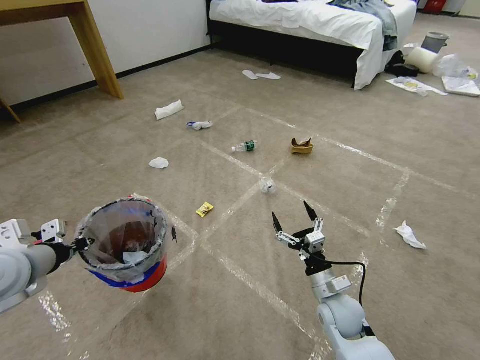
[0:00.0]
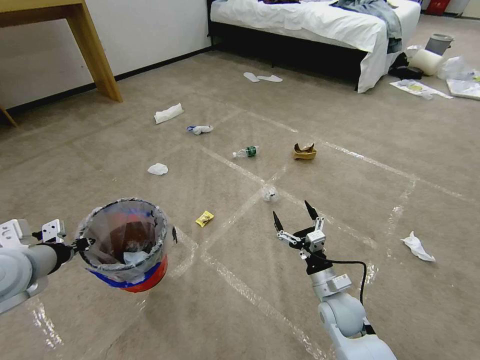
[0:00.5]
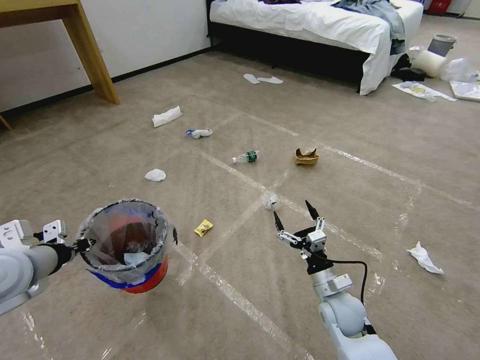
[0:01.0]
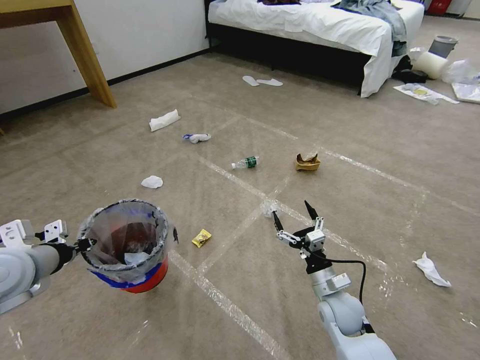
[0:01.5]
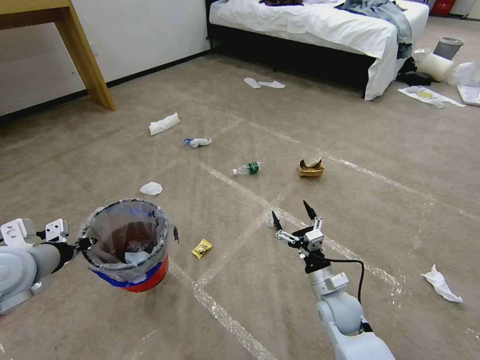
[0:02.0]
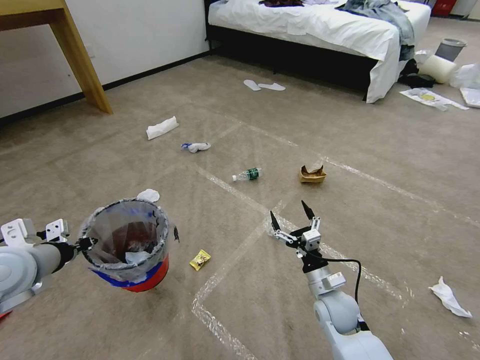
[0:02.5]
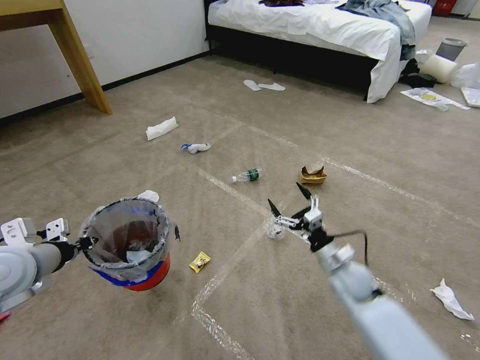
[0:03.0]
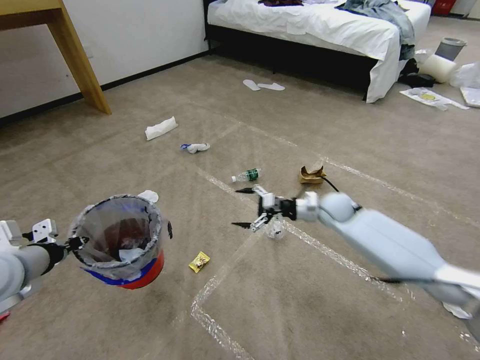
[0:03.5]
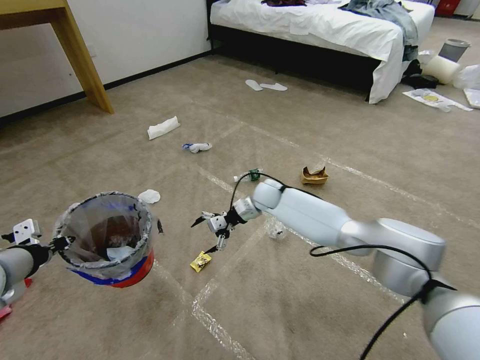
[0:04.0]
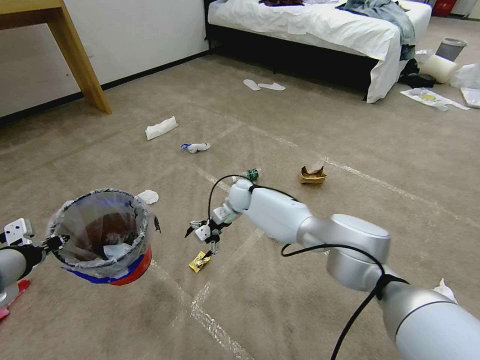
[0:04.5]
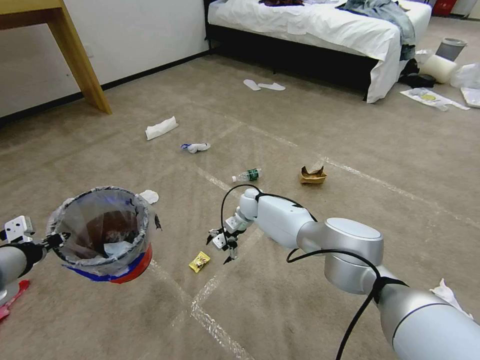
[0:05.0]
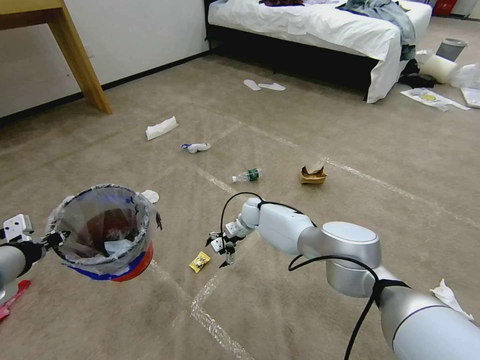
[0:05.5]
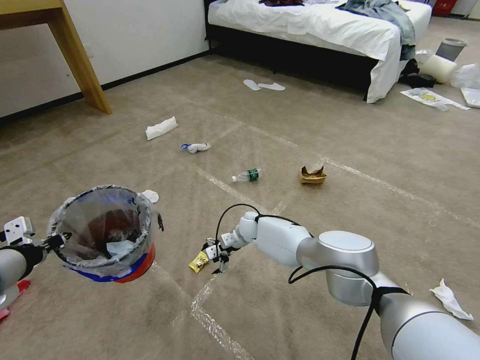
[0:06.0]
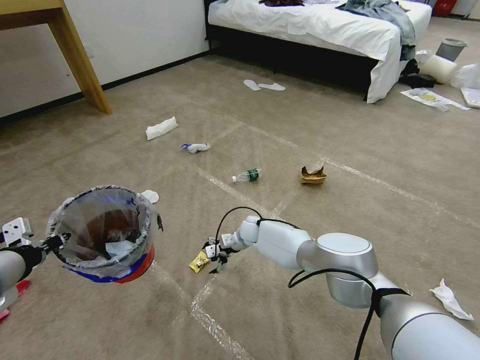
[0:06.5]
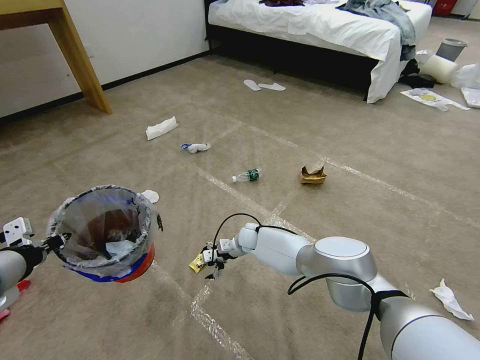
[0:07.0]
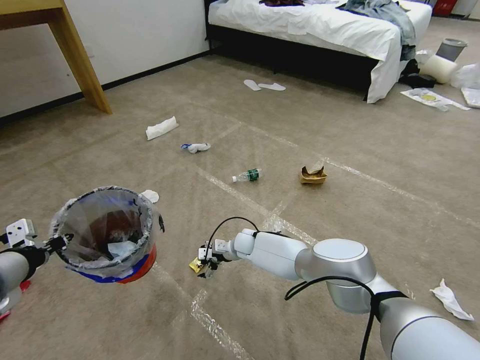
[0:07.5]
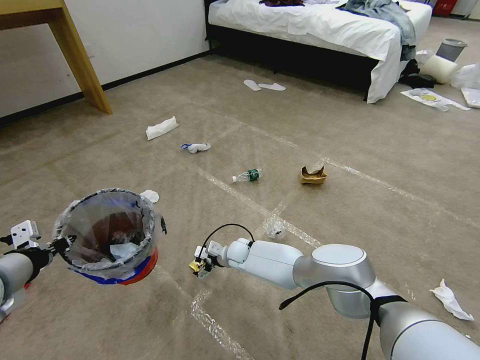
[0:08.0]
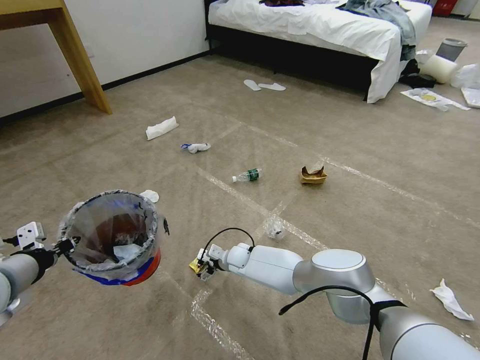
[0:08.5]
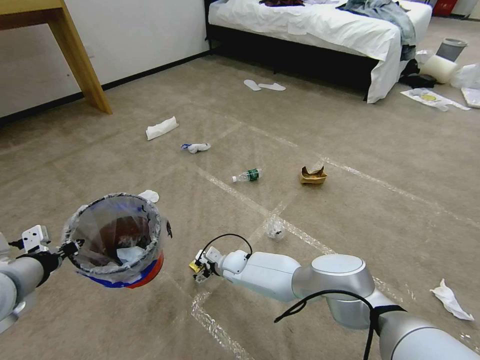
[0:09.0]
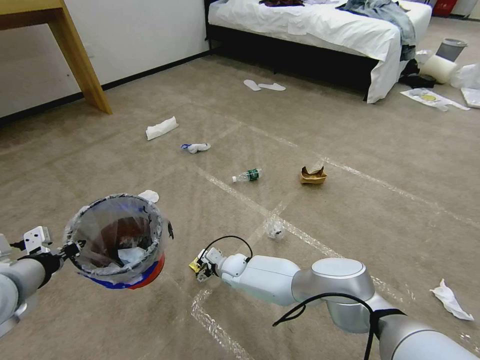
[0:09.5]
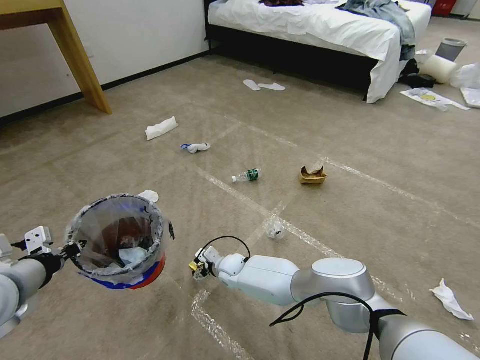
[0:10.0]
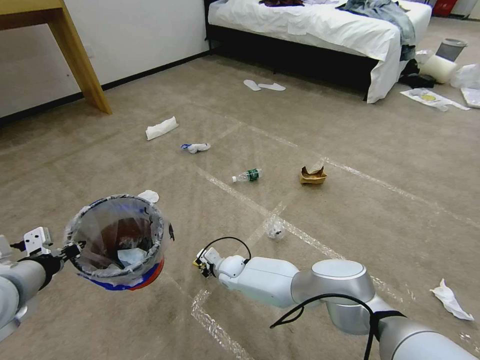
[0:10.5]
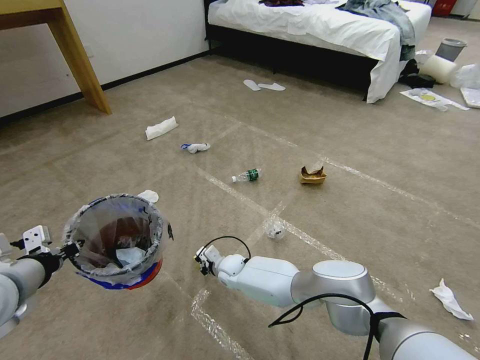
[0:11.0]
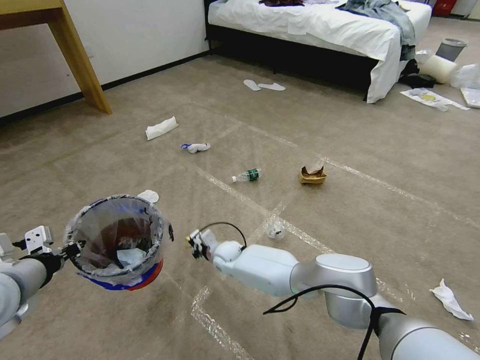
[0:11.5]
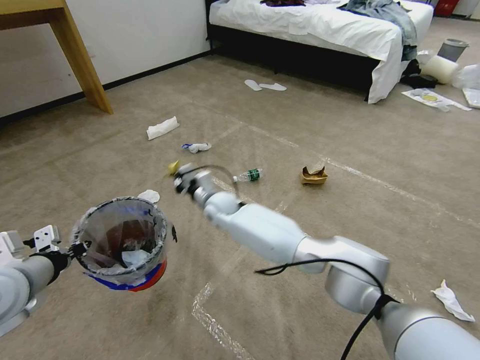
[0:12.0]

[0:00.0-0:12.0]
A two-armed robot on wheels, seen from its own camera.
Task of the whole recording: Pick up the trash bin and place the garbage on the floor into it.
0:02.0 to 0:04.0: The right gripper travels forward and to the left by approximately 35 cm.
0:04.0 to 0:06.0: The right gripper travels downward by roughly 10 cm.
0:06.0 to 0:08.0: The right gripper heads backward, covering some 5 cm.
0:08.0 to 0:10.0: The right gripper ends up approximately 5 cm from where it was.
0:10.0 to 0:12.0: The right gripper travels upward and forward by roughly 20 cm, and closes up.

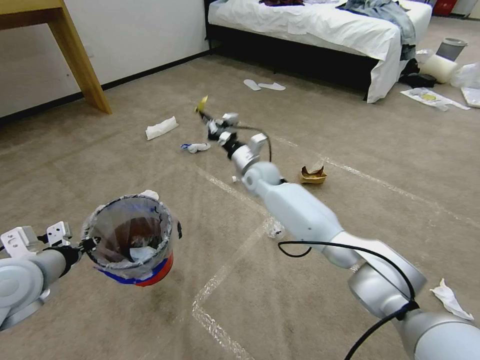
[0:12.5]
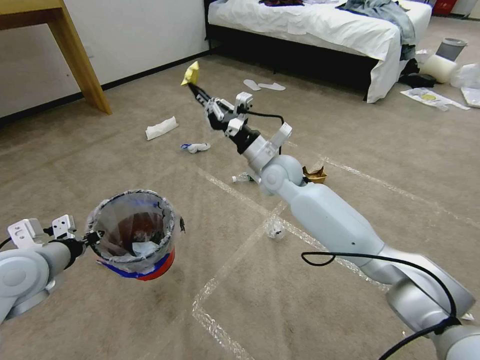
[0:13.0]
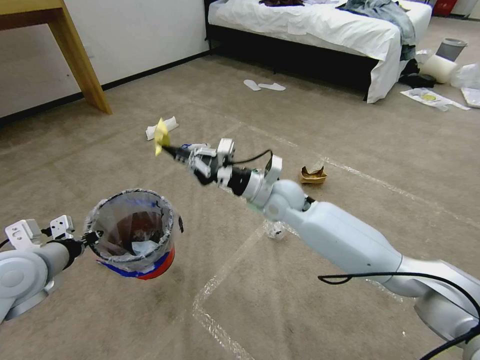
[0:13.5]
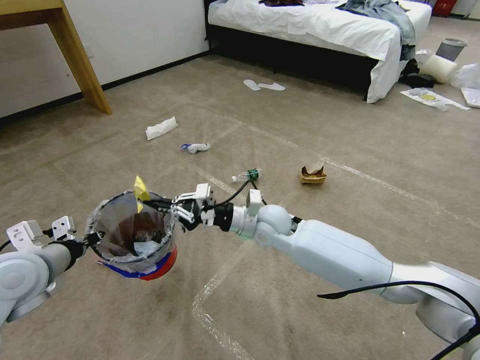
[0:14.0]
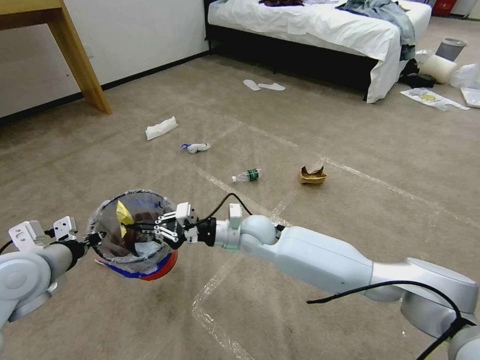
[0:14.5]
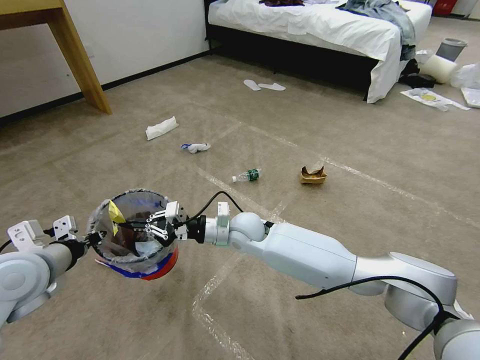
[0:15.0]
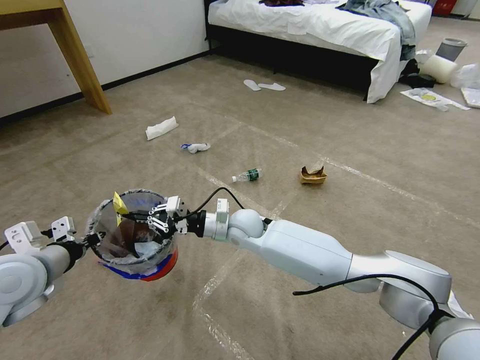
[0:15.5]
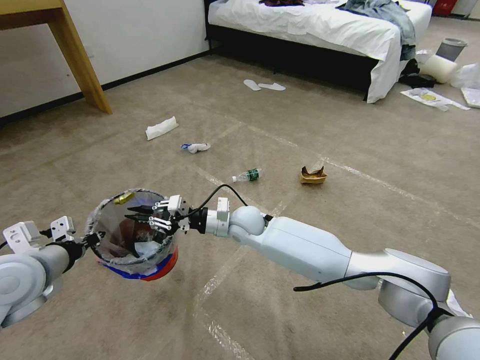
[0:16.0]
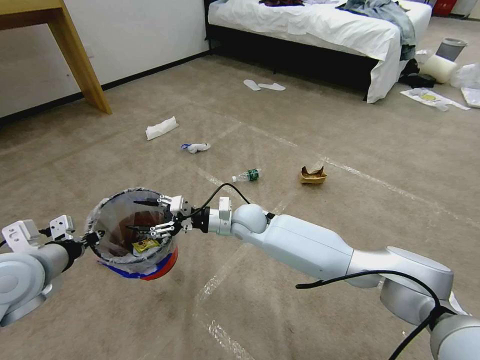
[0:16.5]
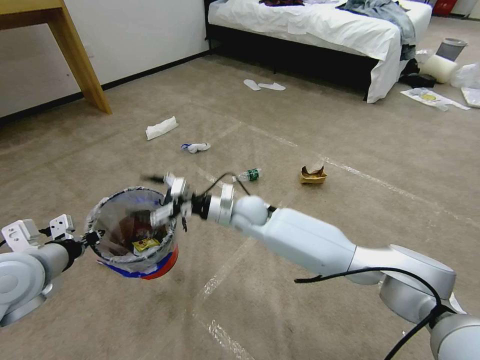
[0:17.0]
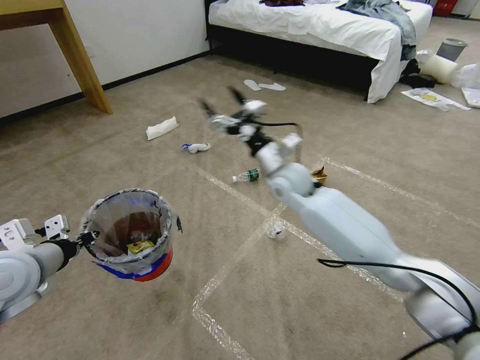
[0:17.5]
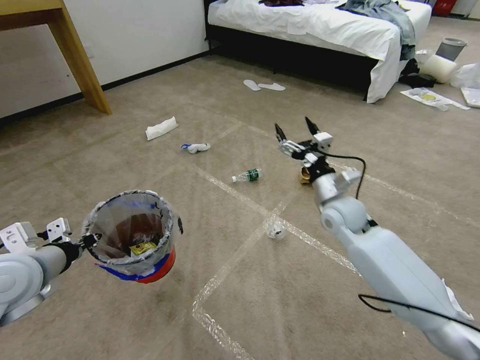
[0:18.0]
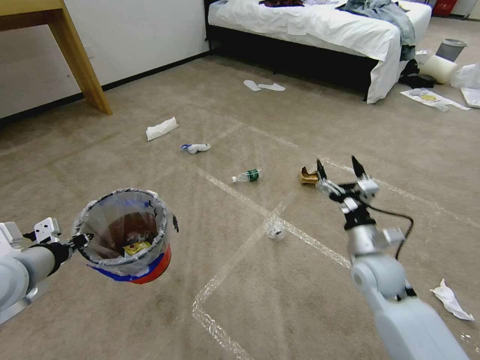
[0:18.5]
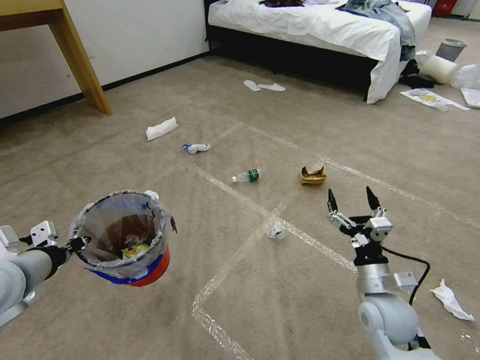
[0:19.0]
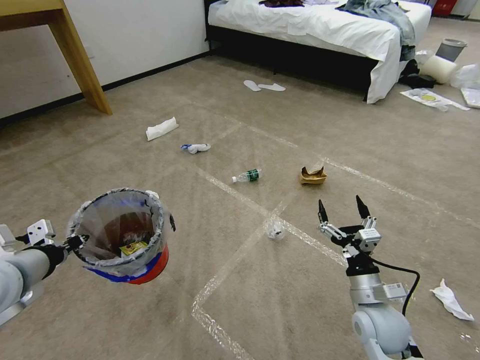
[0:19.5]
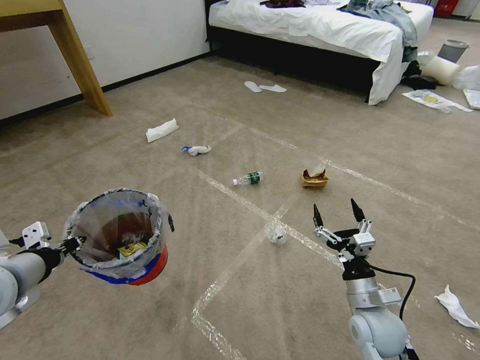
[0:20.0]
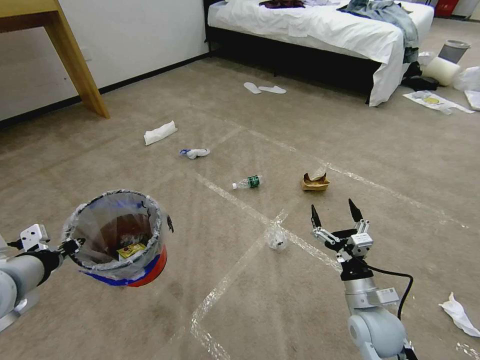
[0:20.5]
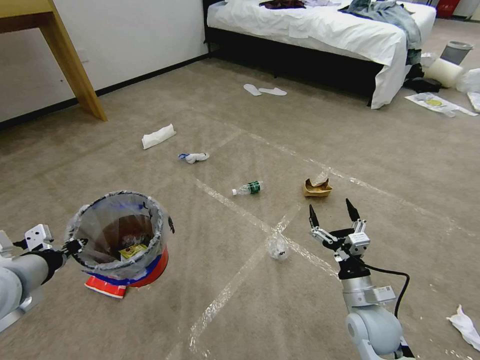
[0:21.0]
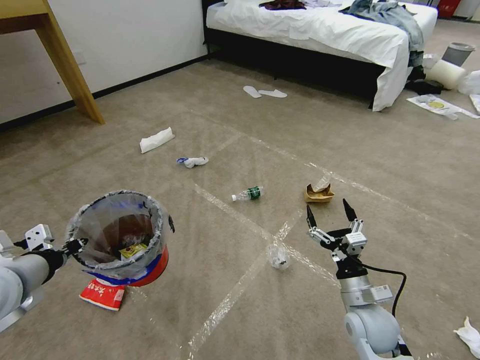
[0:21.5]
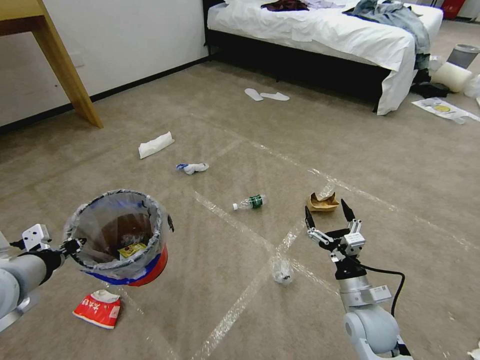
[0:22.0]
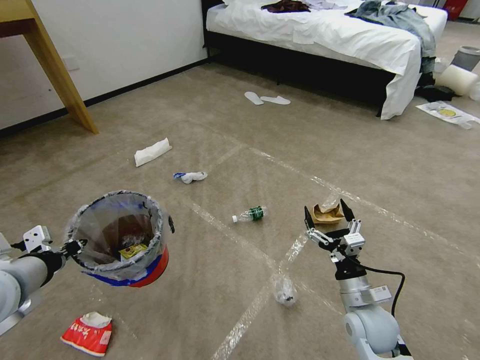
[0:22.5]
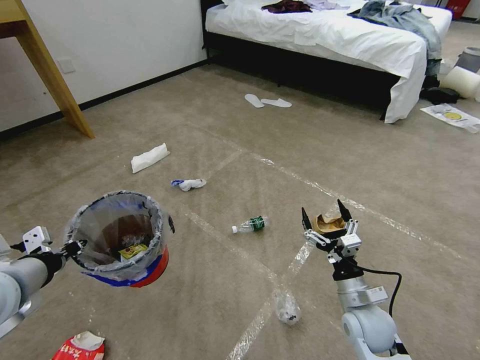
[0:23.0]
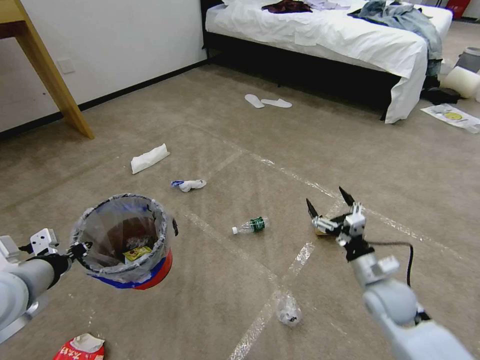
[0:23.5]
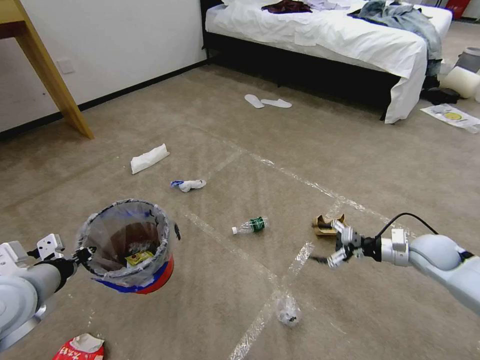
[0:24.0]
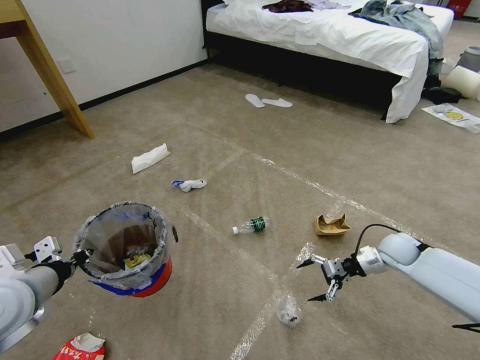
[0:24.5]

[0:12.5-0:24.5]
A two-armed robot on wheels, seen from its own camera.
Task of the whole recording: Pick up the trash bin and place the garbage on the floor into it.
0:12.5 to 0:14.5: The right gripper travels backward by some 15 cm.
0:14.5 to 0:16.5: The right gripper ends up some 5 cm from where it was, and opens.
0:16.5 to 0:18.5: The right gripper is displaced to the right and backward by some 30 cm.
0:18.5 to 0:20.5: The right gripper shifts some 10 cm backward and downward.
0:22.5 to 0:24.5: The right gripper moves forward and to the right, approximately 25 cm.

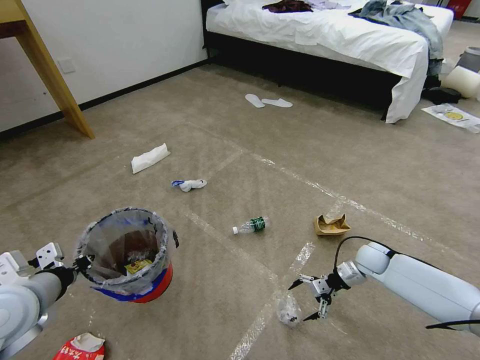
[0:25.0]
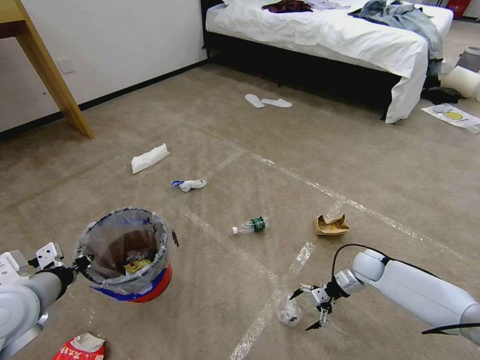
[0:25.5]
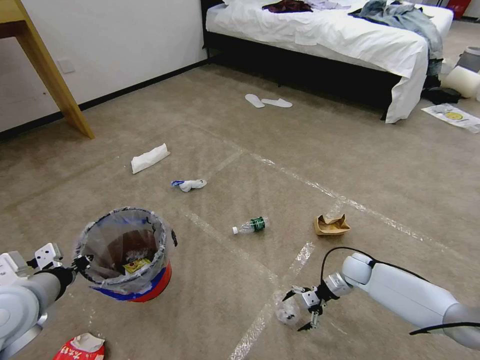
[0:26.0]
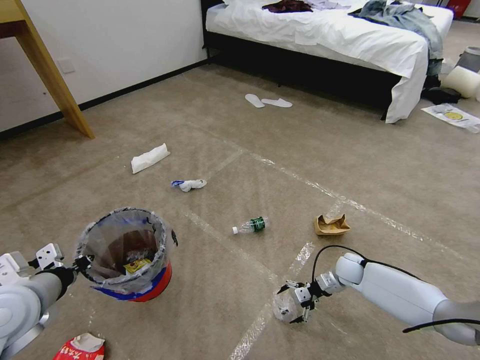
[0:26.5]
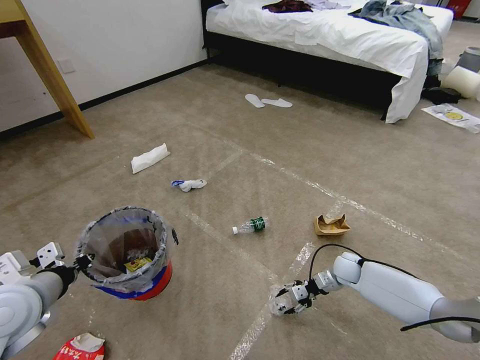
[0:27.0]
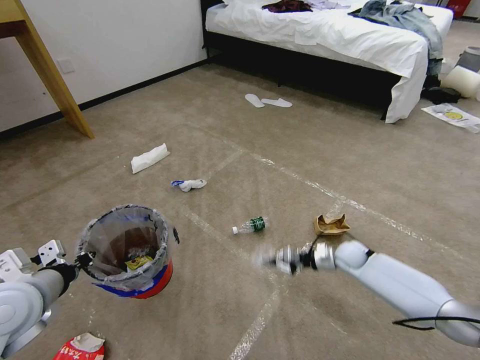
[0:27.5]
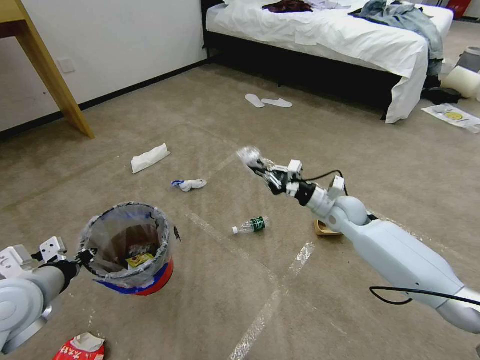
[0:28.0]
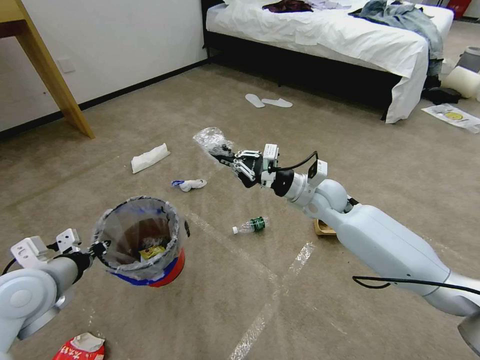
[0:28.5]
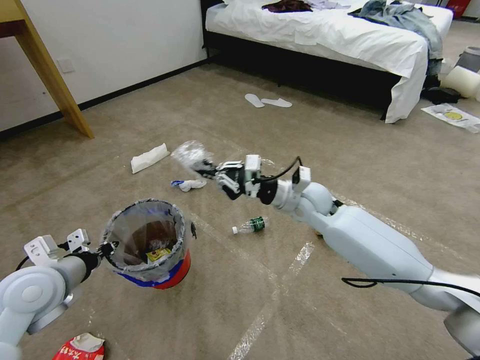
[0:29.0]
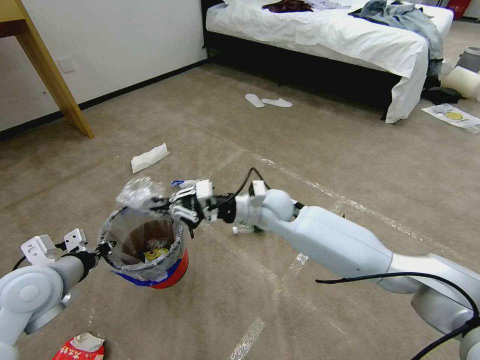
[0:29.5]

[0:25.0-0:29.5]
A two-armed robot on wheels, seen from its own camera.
Task of the whole recording: Pick up the trash bin and place the garbage on the floor into it.
0:25.0 to 0:27.0: The right gripper goes about 5 cm downward and to the left, and closes its fingers.
0:27.0 to 0:29.5: The right gripper travels to the left and upward by about 35 cm, and closes up.
